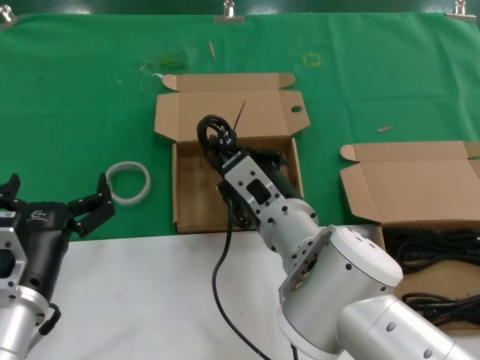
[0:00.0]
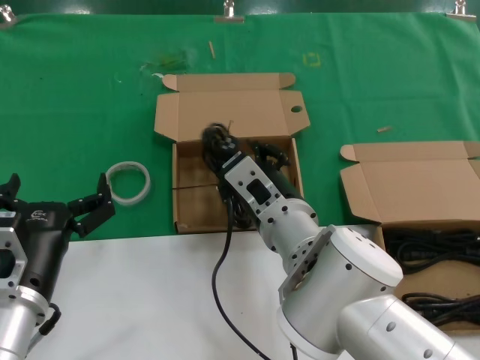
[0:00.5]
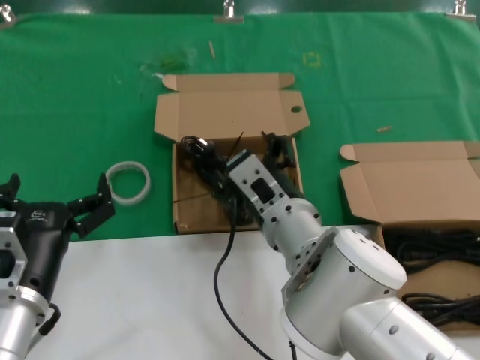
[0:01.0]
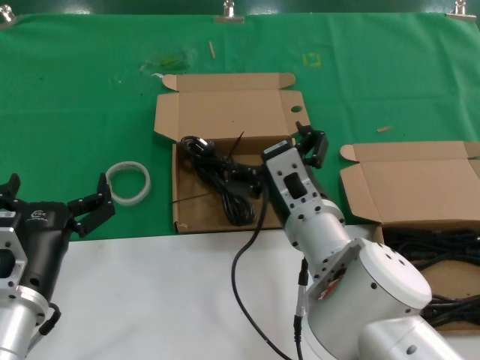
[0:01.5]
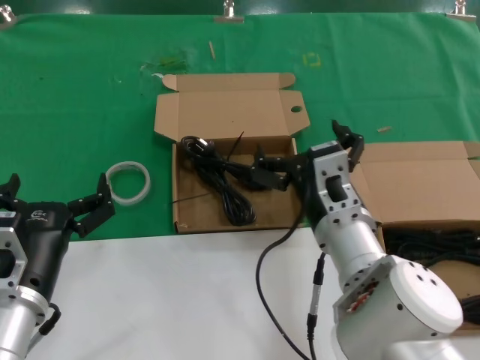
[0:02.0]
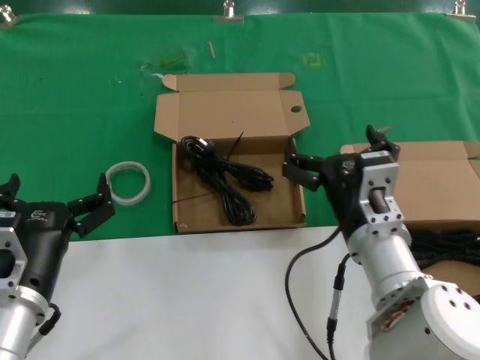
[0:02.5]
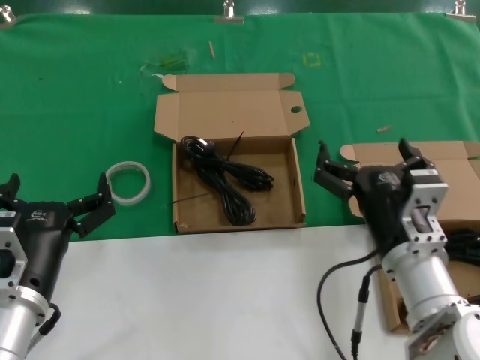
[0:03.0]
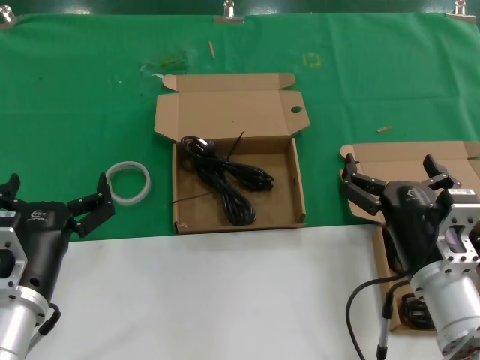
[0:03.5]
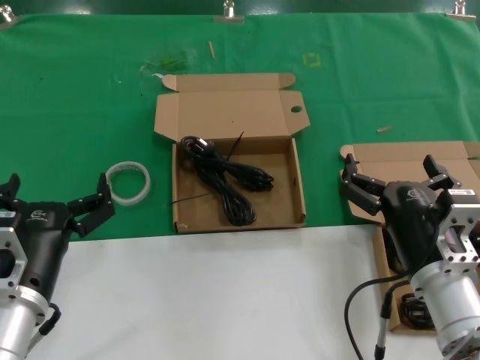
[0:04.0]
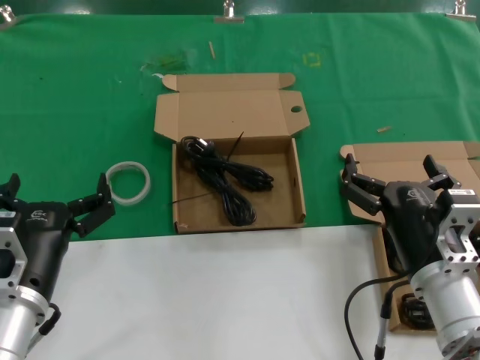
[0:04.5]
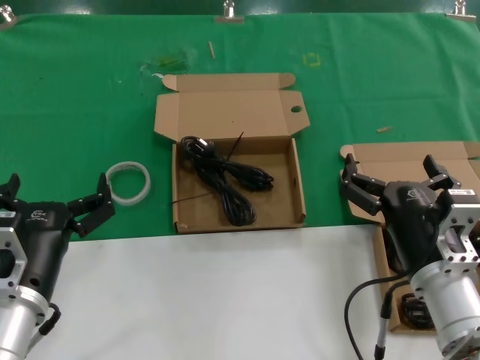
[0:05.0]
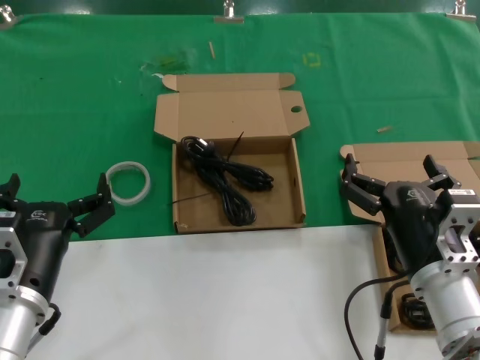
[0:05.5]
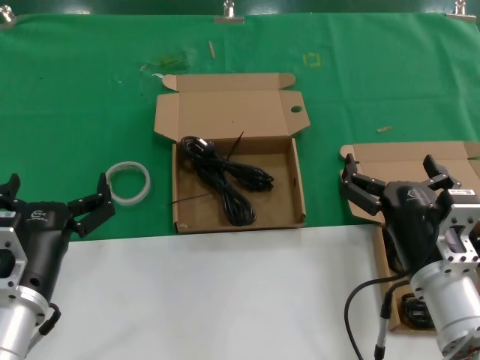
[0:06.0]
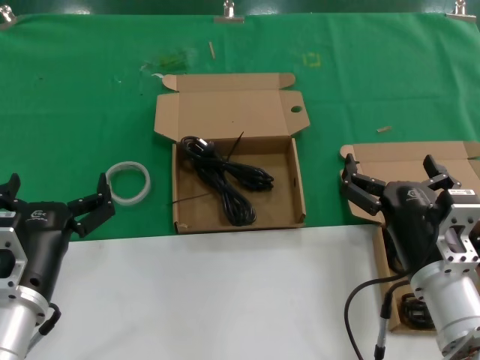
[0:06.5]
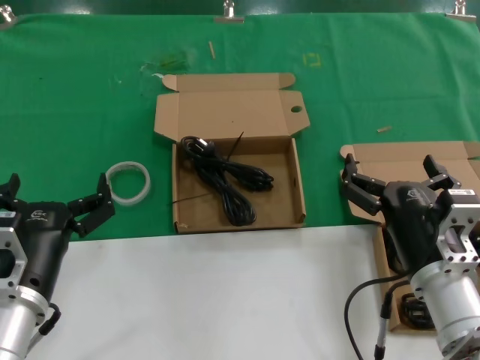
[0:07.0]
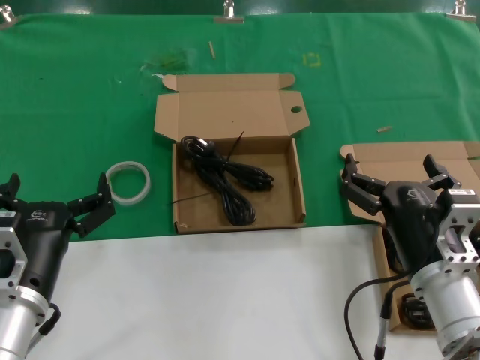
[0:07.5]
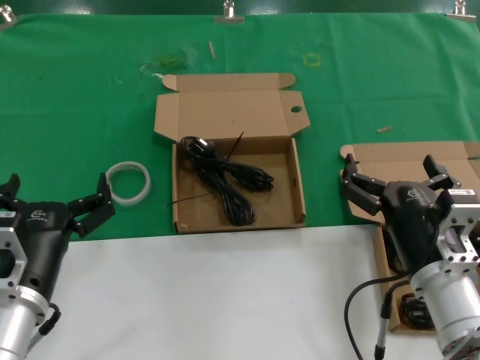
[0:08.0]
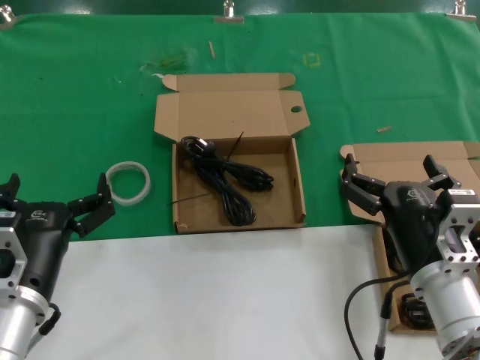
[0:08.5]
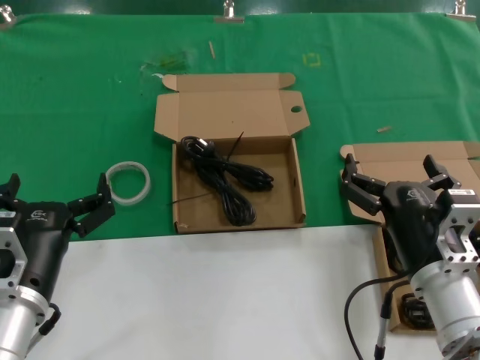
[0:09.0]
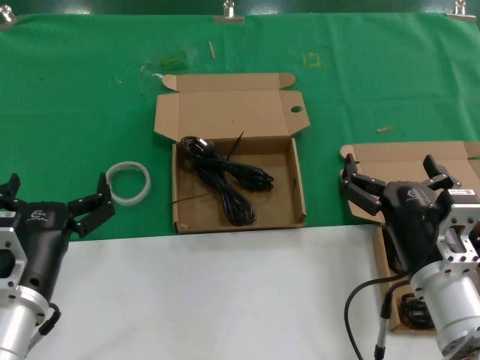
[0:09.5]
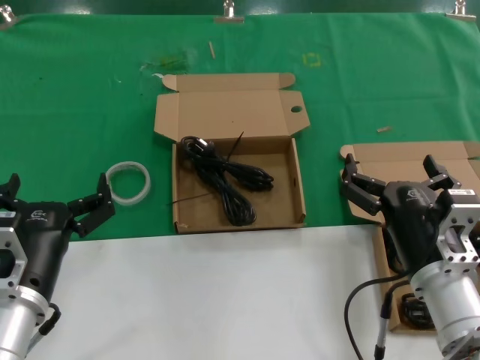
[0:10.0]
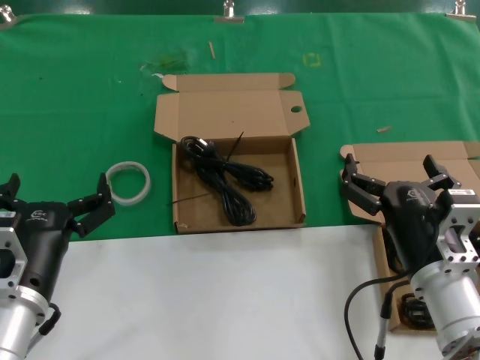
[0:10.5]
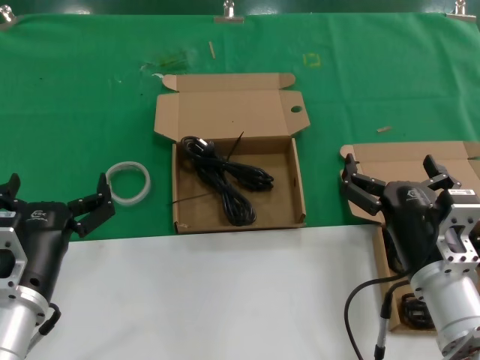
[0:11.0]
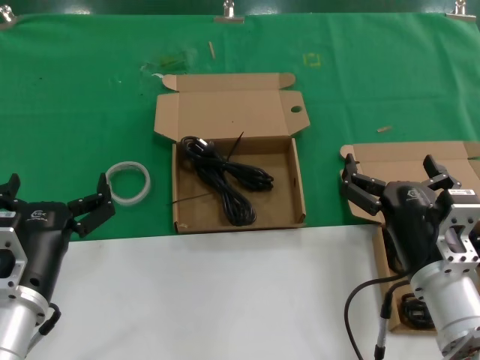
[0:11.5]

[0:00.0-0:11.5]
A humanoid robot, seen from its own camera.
Task of the whole recording: take the parts from the box containing them and put them into an empty box.
0:00.0 to 0:02.0: The right hand goes some 5 cm to the right.
0:02.0 to 0:04.0: The right hand shifts approximately 10 cm to the right and backward.
0:04.0 to 0:11.5: Both hands stay about where they are.
